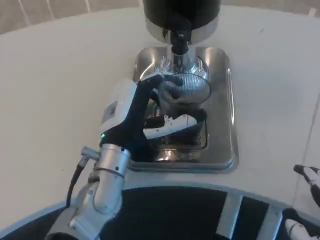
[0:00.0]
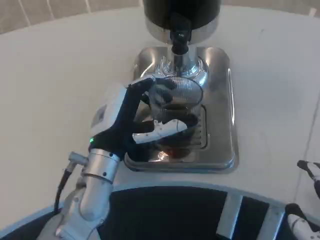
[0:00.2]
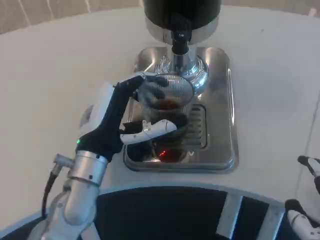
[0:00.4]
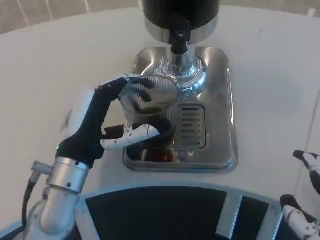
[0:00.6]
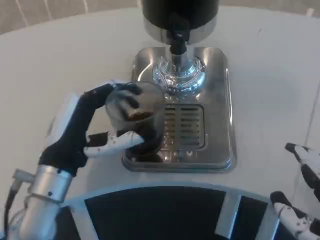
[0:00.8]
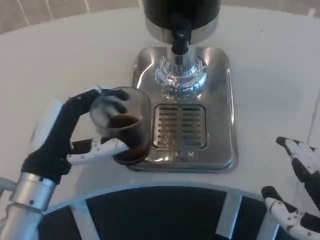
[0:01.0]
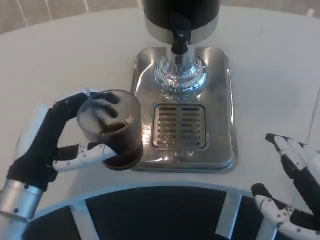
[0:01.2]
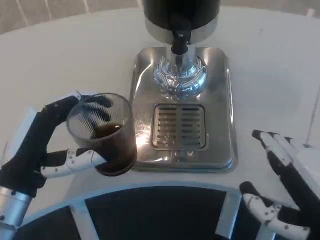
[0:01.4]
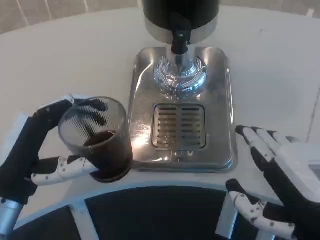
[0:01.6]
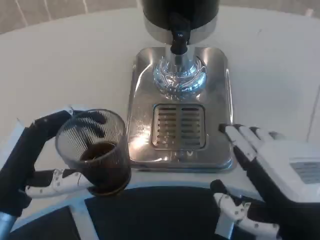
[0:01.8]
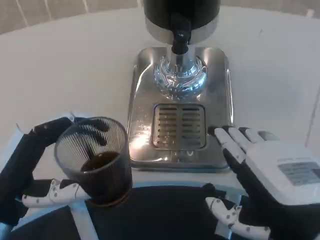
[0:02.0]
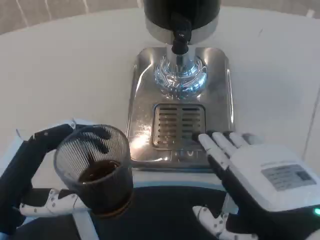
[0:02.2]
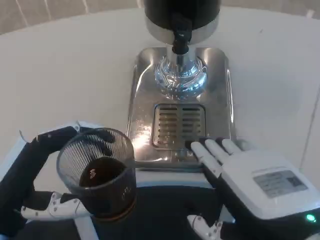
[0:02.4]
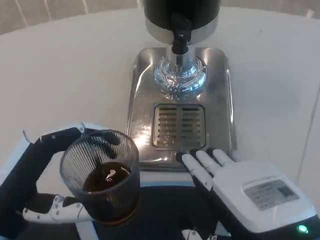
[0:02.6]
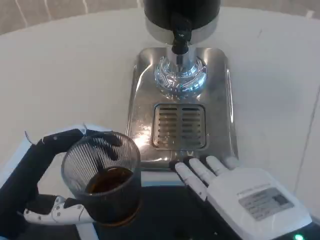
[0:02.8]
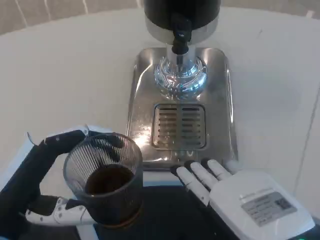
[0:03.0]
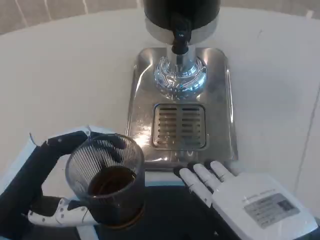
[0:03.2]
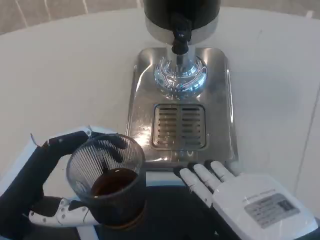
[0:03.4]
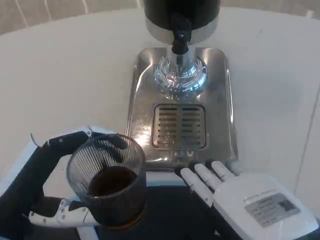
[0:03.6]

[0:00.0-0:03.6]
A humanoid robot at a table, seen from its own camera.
Task of the whole recording: Grasp the cup under the faucet to collect the drink, then remove the cup.
0:00.0 to 0:01.8: The right hand heads to the left, covering roughly 5 cm, while the left hand moves to the left and backward, approximately 20 cm.

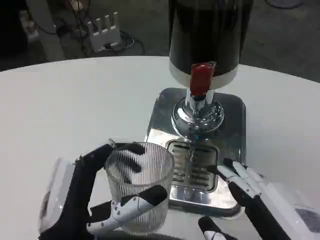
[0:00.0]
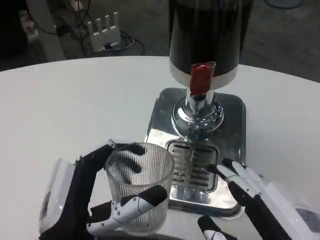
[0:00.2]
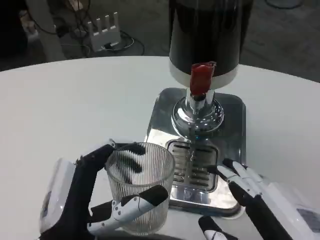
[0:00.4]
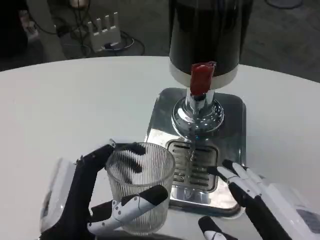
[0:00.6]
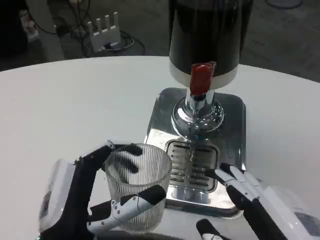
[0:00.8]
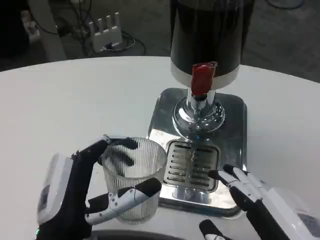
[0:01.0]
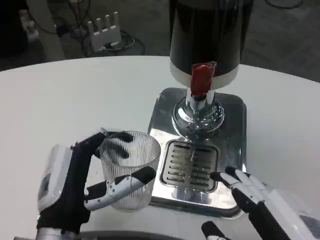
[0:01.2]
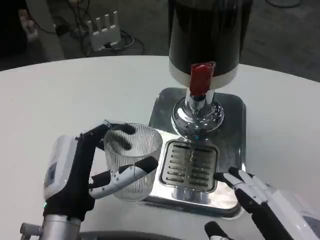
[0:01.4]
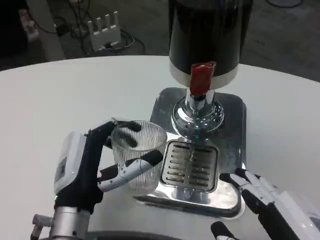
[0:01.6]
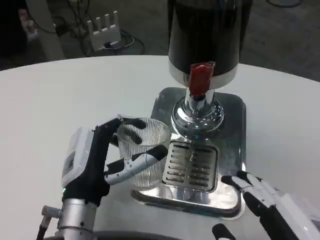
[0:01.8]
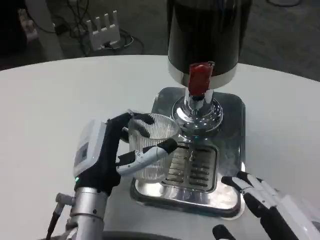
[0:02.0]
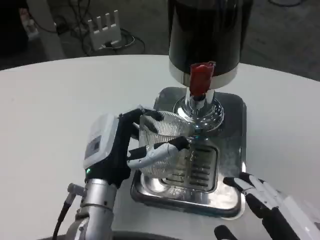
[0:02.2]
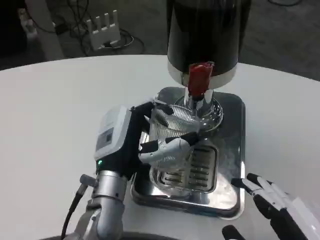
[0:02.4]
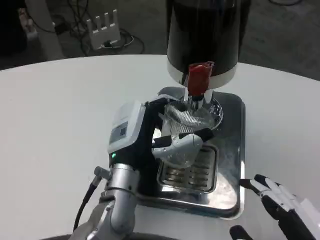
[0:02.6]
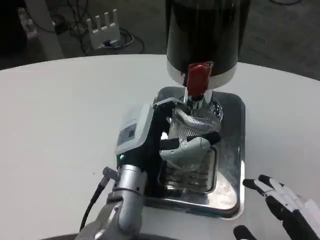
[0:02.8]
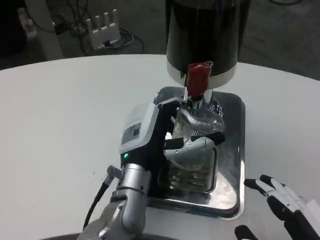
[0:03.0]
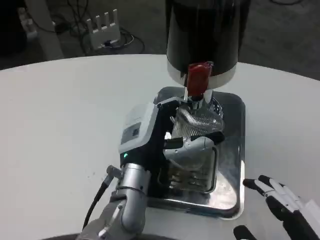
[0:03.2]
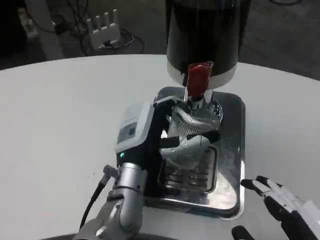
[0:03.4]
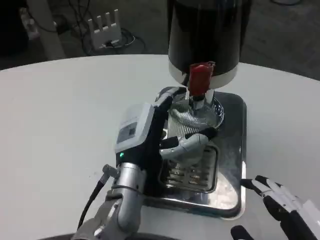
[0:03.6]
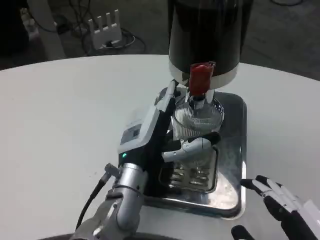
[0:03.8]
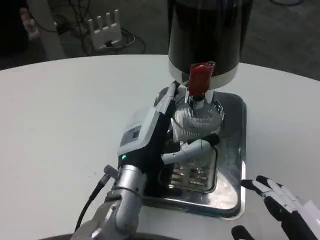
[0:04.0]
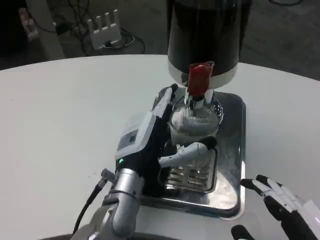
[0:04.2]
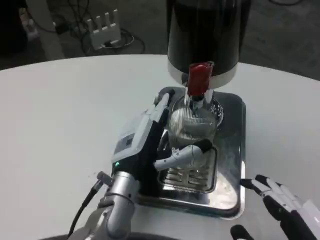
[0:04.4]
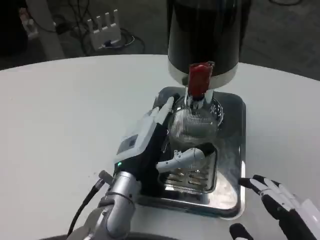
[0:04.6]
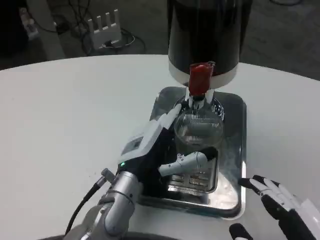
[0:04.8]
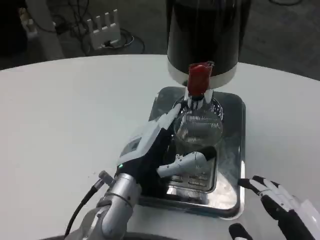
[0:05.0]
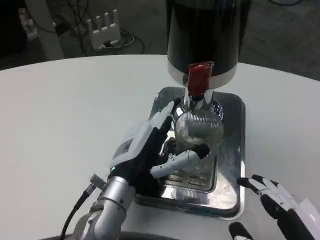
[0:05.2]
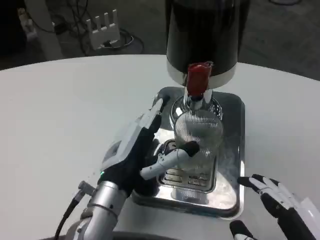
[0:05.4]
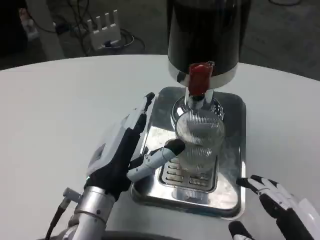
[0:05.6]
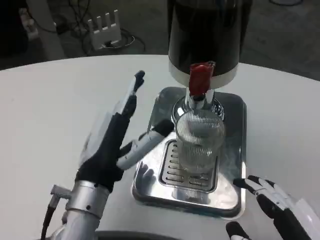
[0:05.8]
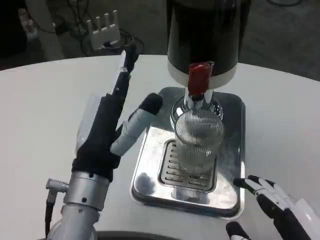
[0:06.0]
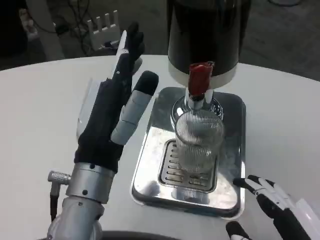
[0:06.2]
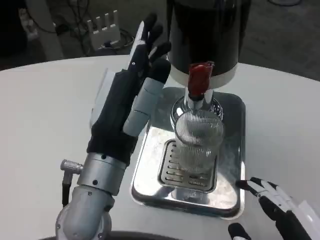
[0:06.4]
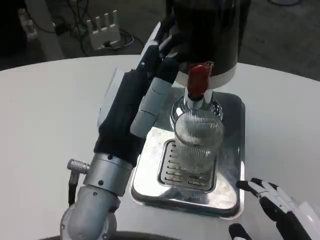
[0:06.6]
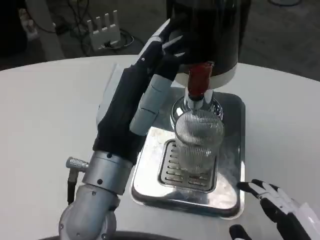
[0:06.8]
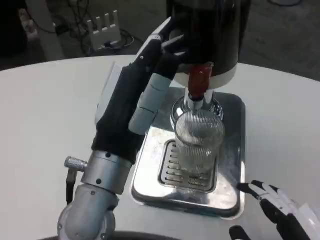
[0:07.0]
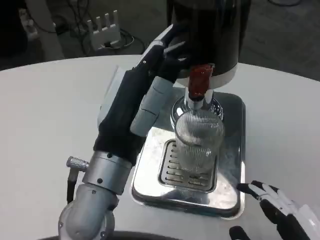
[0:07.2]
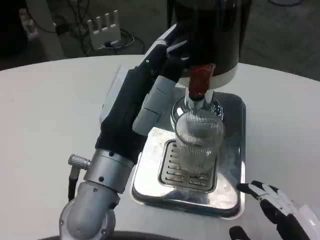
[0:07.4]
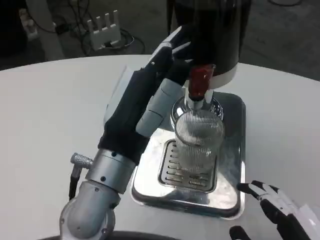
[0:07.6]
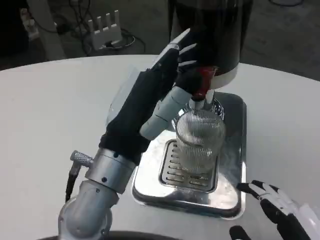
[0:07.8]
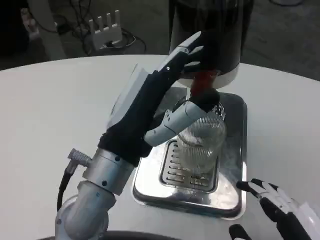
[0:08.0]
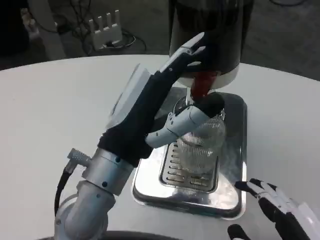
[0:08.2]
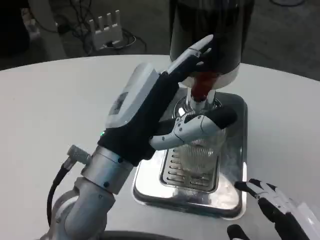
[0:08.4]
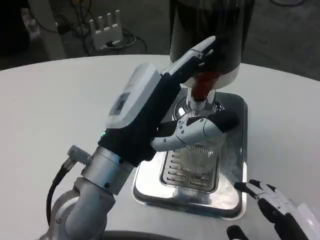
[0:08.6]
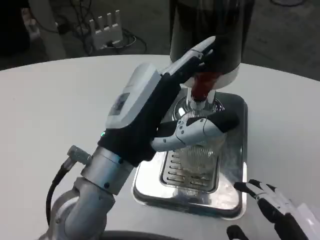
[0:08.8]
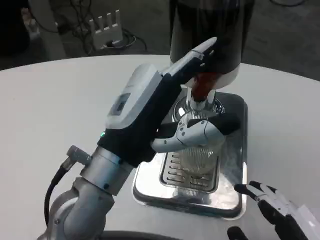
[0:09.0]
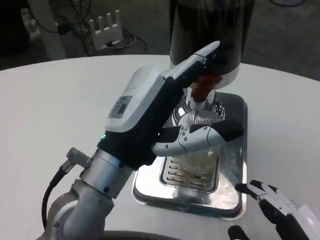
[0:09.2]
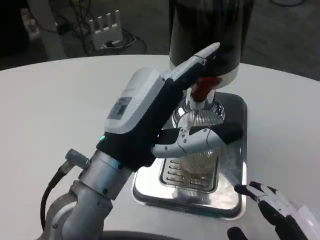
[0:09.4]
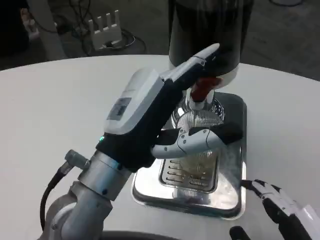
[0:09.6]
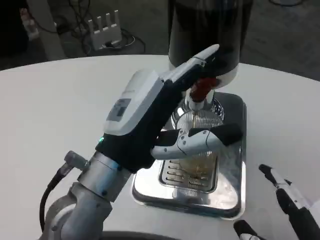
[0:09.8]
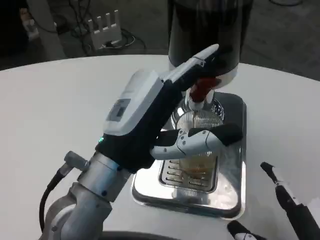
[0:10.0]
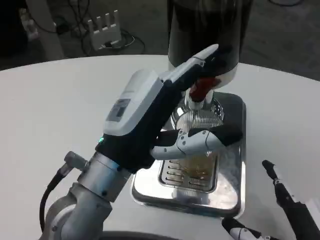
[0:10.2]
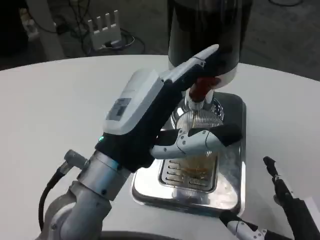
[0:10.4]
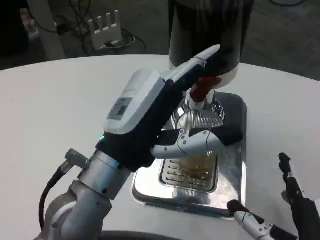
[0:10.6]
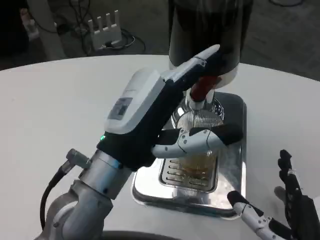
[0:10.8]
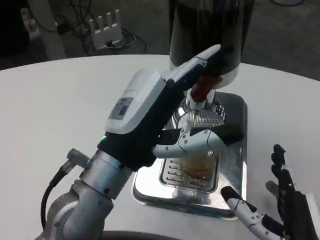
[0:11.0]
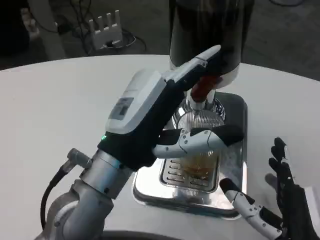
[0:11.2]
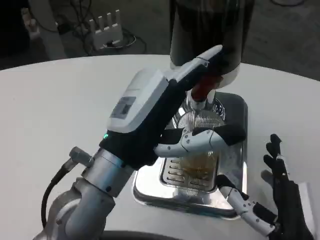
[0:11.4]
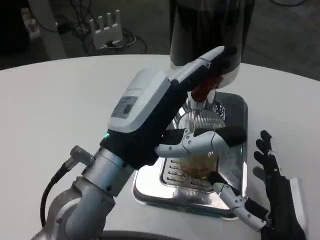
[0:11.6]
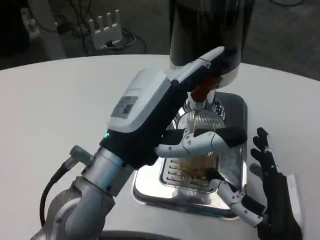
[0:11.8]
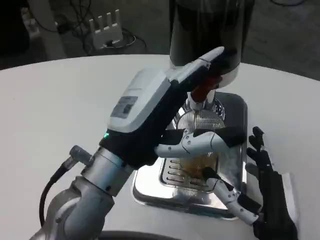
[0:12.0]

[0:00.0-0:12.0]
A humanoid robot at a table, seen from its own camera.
Task of the whole recording: Grasp the cup under the faucet to collect the drink, then remove the cup.
0:00.0 to 0:01.6: The left hand moves forward, approximately 10 cm.
0:01.6 to 0:03.0: The left hand goes about 10 cm to the right and forward.
0:03.0 to 0:04.4: The hands make only small movements.
0:04.4 to 0:06.0: The left hand is displaced backward and upward by about 10 cm.
0:06.0 to 0:07.6: The hands make only small movements.
0:09.0 to 0:10.4: The right hand ends up approximately 5 cm from where it was.
0:10.4 to 0:12.0: The right hand moves forward, some 5 cm.

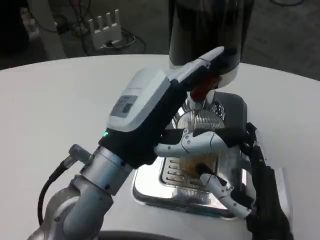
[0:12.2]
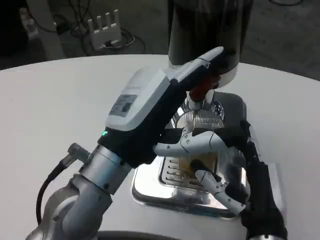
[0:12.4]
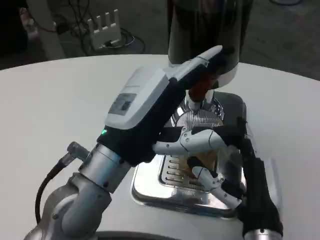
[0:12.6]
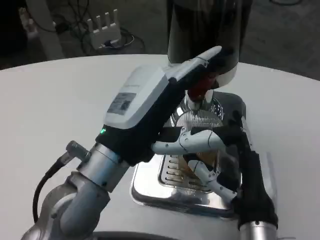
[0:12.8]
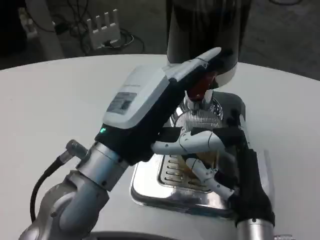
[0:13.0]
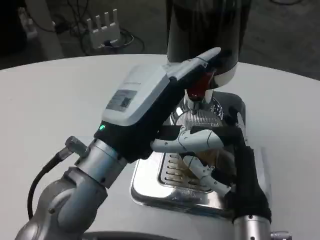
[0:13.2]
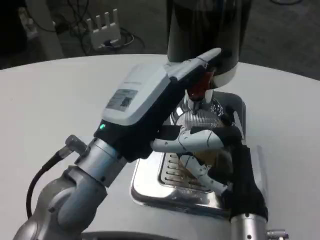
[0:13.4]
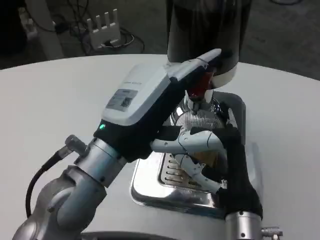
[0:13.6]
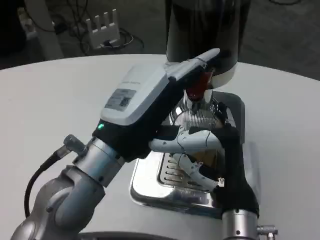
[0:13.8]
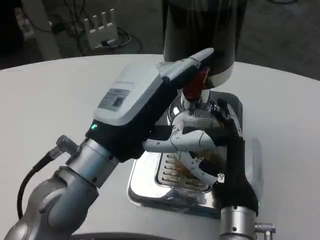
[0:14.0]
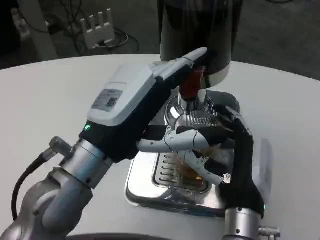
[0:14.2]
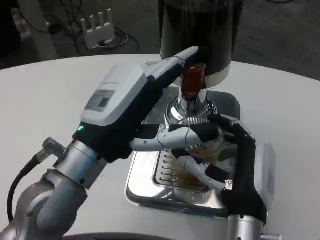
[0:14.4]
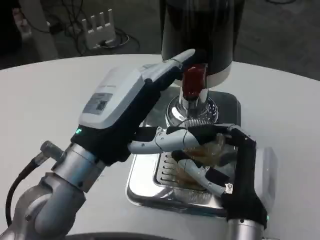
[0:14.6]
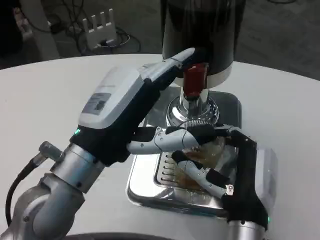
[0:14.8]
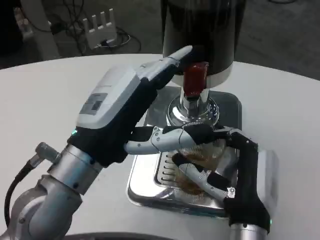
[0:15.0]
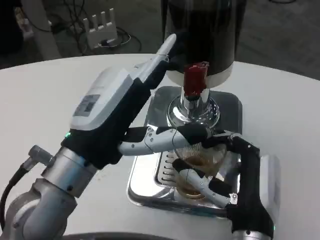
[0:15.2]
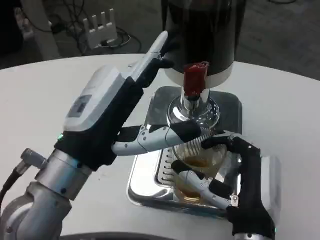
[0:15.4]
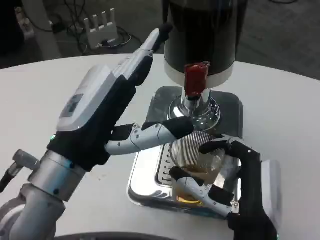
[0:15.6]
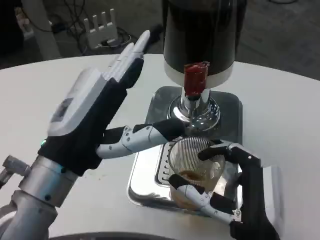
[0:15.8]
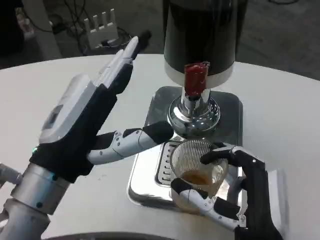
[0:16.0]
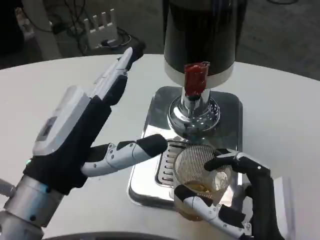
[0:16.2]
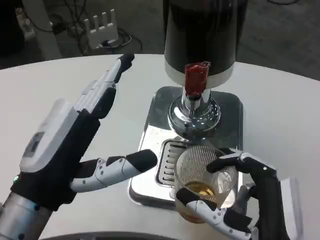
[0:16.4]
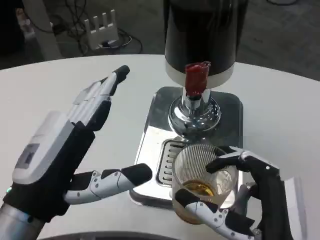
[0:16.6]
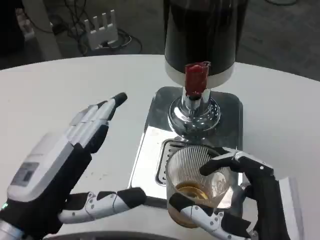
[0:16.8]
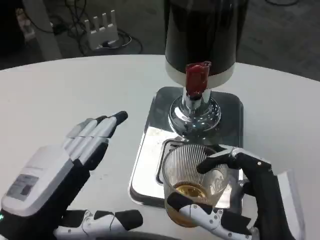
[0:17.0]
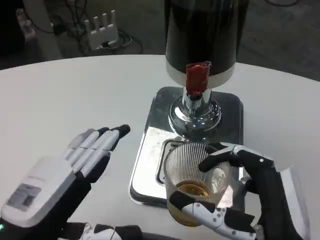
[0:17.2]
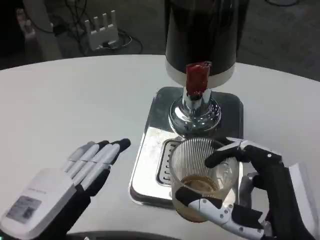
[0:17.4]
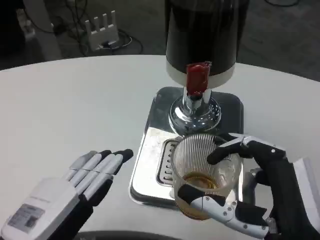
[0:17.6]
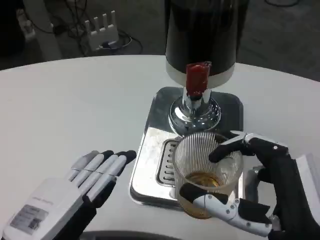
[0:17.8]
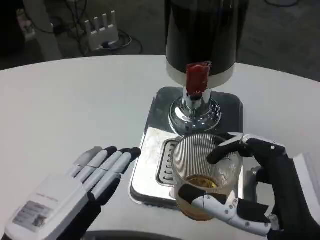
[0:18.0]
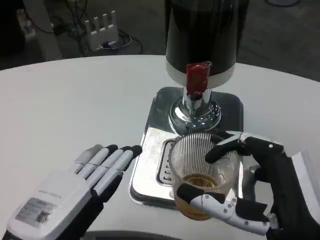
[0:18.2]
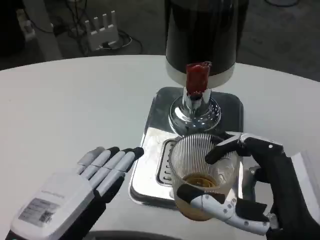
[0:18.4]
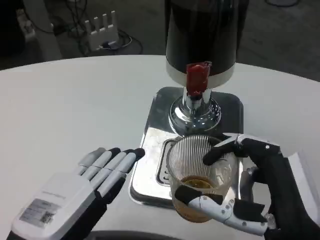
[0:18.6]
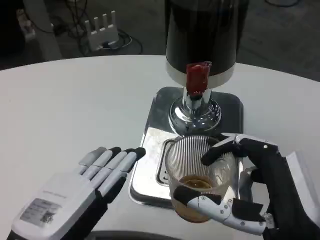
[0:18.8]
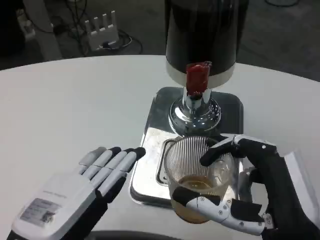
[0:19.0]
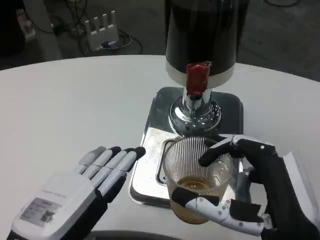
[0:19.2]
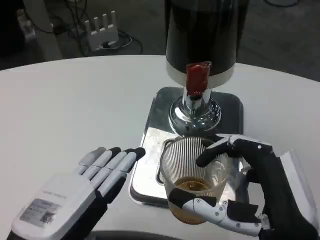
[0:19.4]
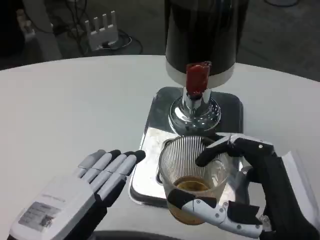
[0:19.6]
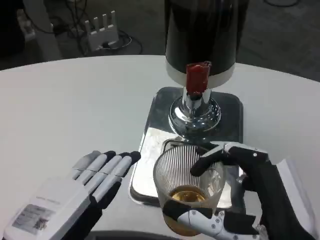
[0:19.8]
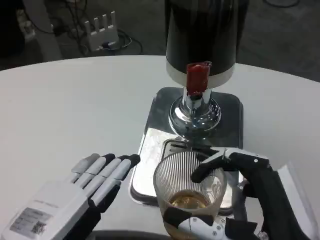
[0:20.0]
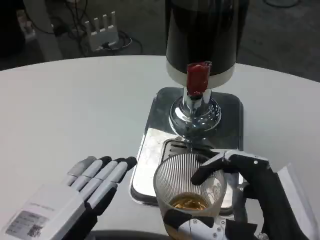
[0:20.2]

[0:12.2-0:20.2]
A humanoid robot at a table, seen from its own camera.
Task of the whole recording: Grasp the cup under the faucet to collect the drink, then remove the cup.
0:12.2 to 0:13.8: The right hand moves roughly 5 cm.
0:15.4 to 0:17.0: The right hand moves backward, some 5 cm, while the left hand goes roughly 10 cm to the left, downward and backward.
0:18.6 to 0:20.2: There are only small adjustments of the hands.
